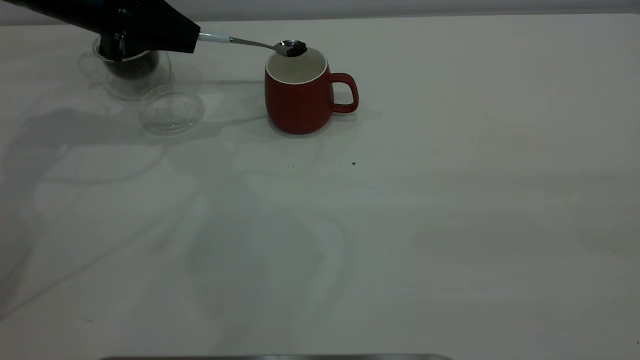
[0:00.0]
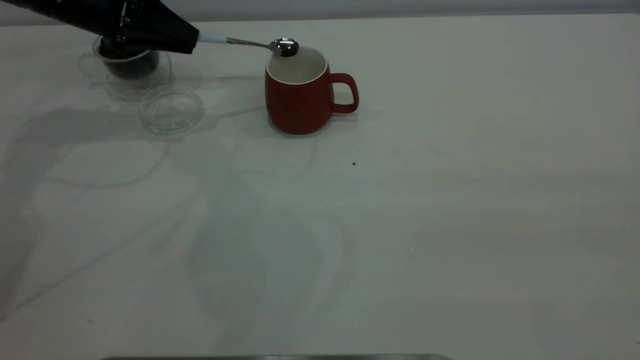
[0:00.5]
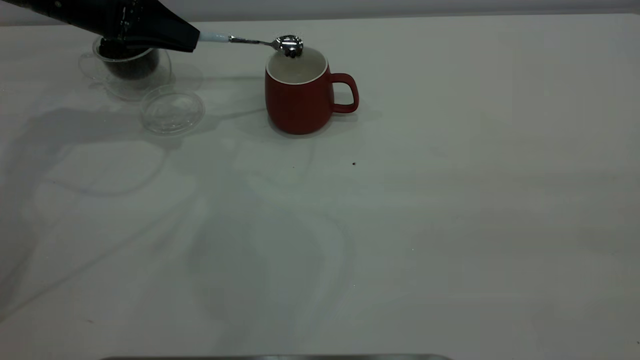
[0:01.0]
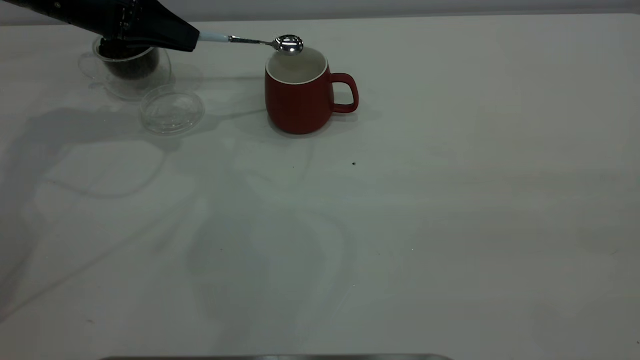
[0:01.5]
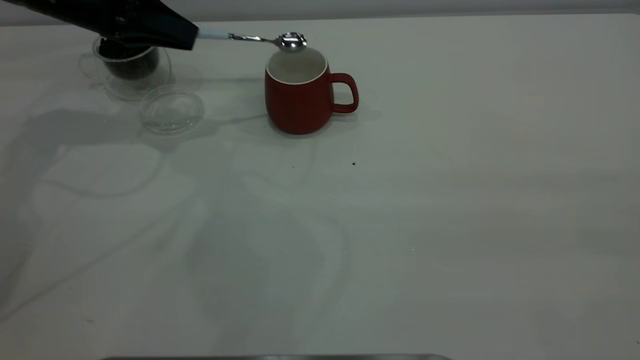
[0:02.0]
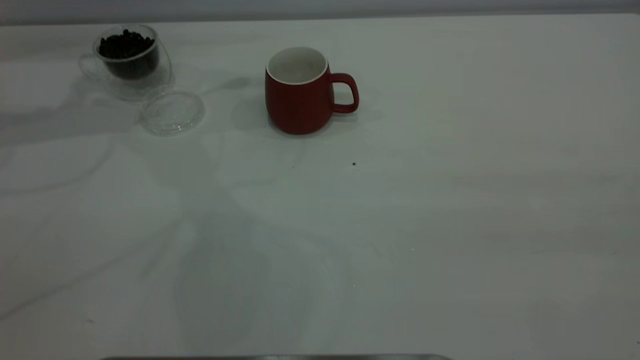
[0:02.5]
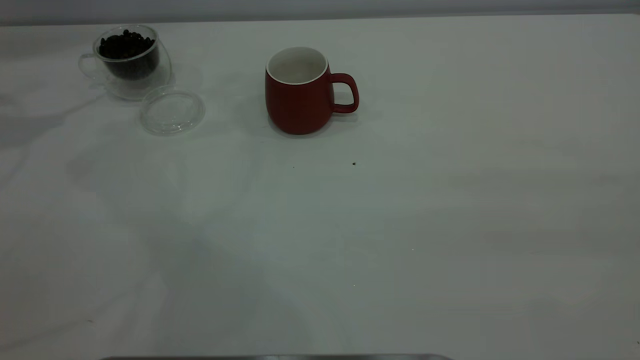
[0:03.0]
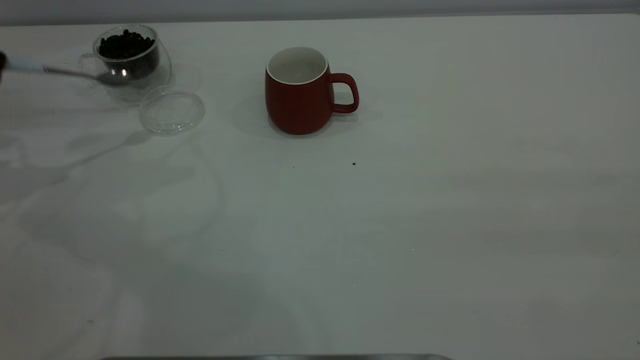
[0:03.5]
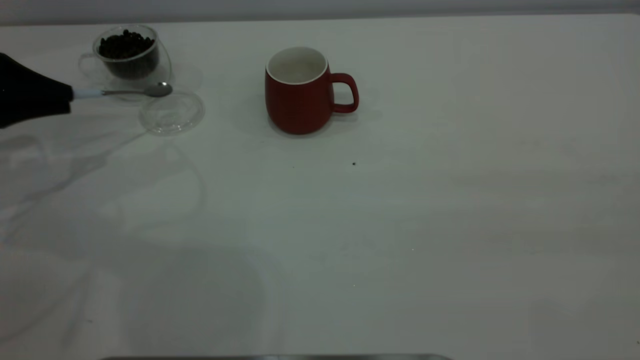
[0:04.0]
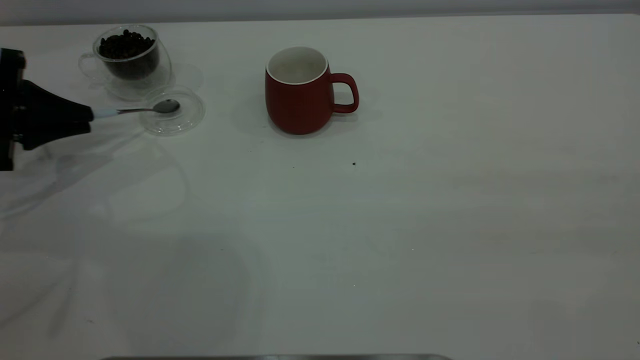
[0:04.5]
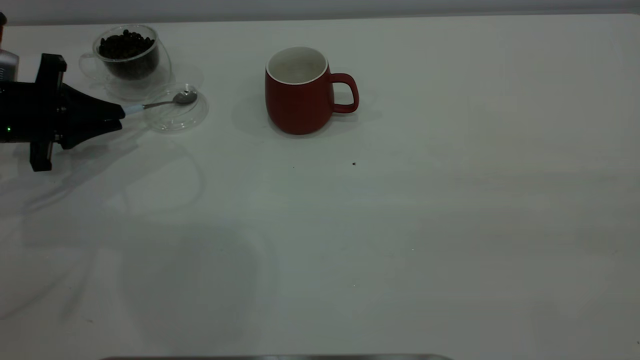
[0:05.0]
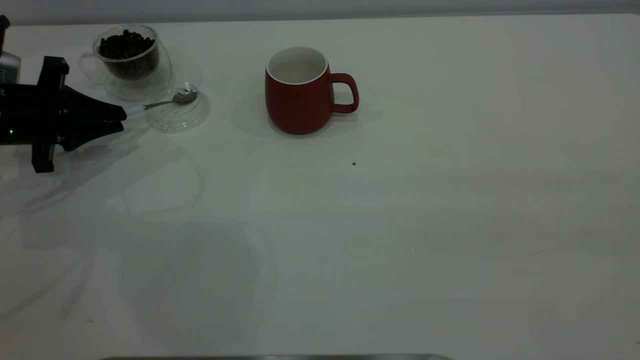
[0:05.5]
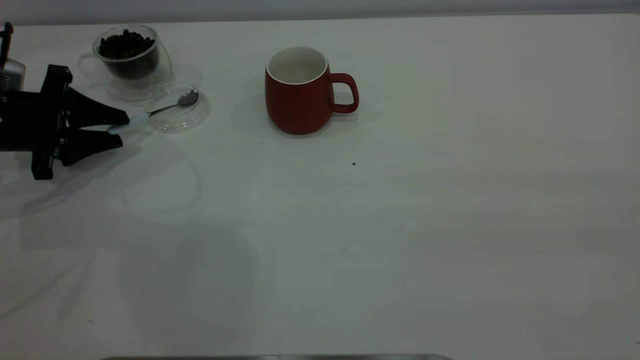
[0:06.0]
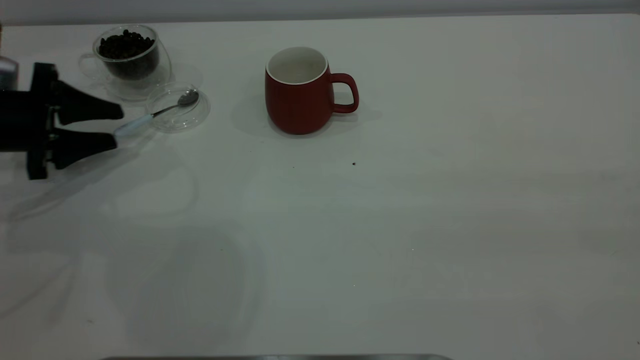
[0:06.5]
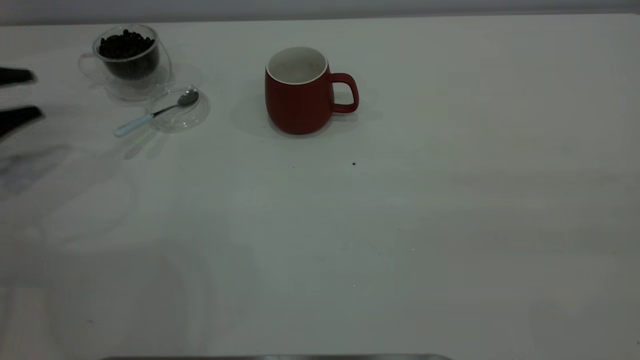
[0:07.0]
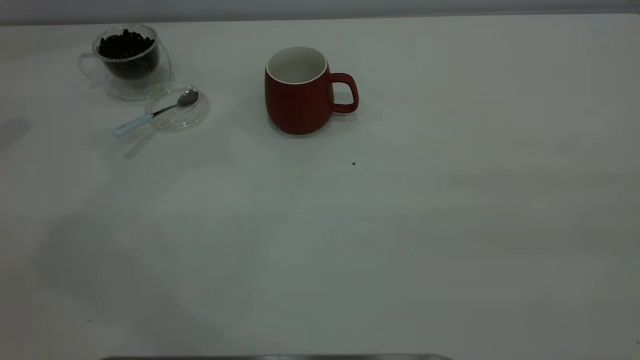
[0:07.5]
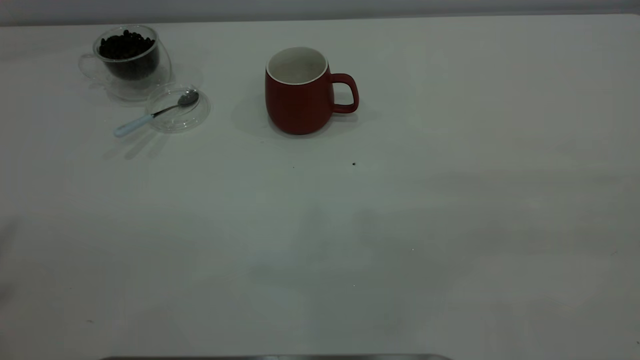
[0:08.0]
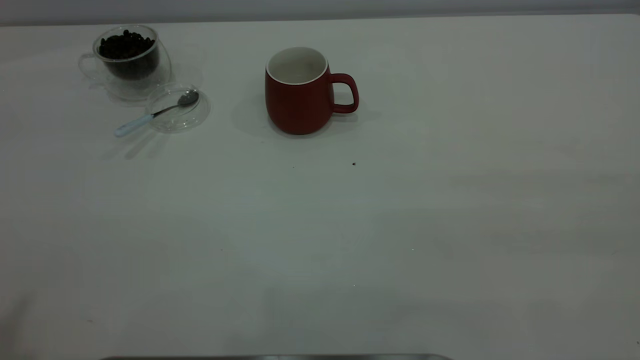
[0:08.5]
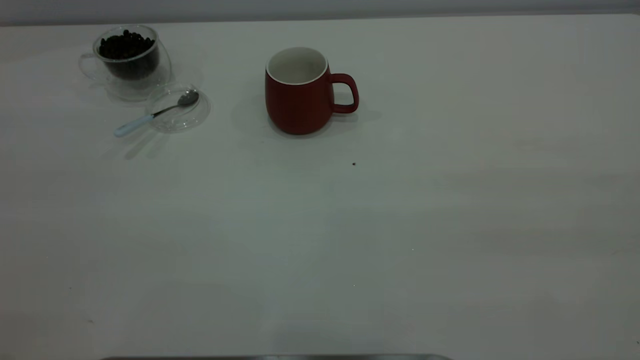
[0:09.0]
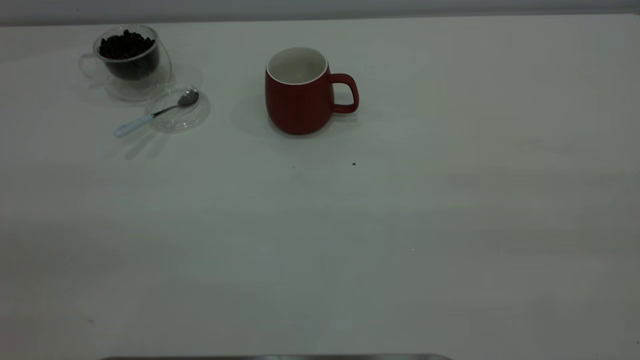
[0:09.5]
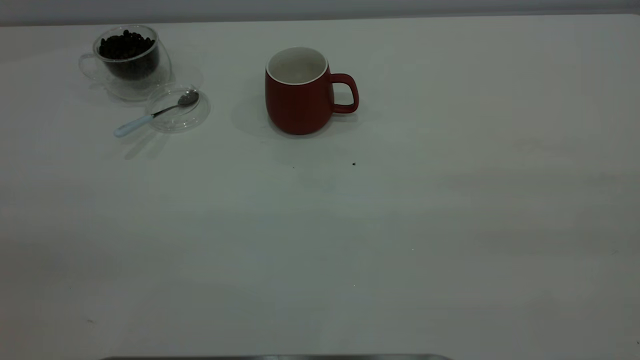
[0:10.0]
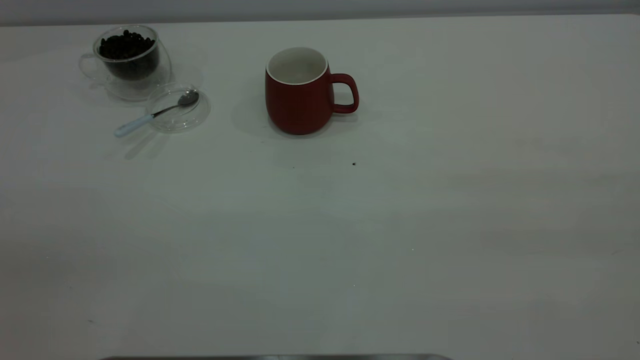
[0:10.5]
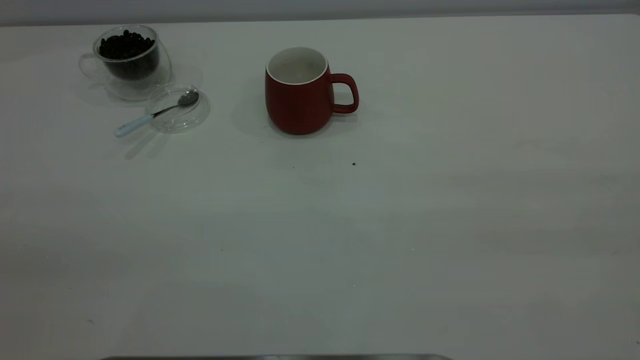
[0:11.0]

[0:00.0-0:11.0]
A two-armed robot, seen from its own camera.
Task of the whole recording: the right gripper place the red cup in the center of the table, the left gripper take the blue spoon from the cup lid and scoop out the coffee beans from the coffee cup and put them into the red cup, the left gripper put the spoon back into the cup lid.
Step, 0:02.5 to 0:06.5: Place the spoon back in its original place.
0:02.0 to 0:03.5: The left gripper is displaced to the left and backward by approximately 20 cm.
0:03.5 to 0:05.5: The left gripper heads downward and to the right, covering some 15 cm.
0:05.5 to 0:07.5: The left gripper heads upward, covering some 30 cm, and opens up.

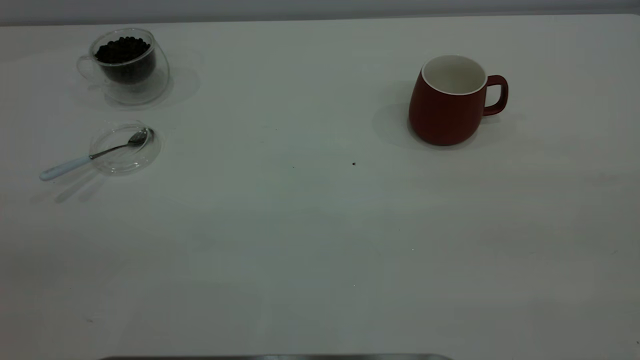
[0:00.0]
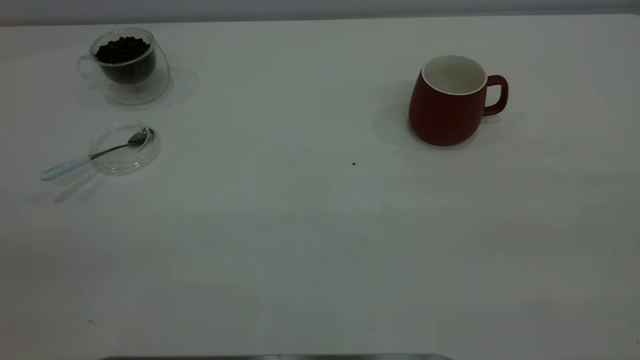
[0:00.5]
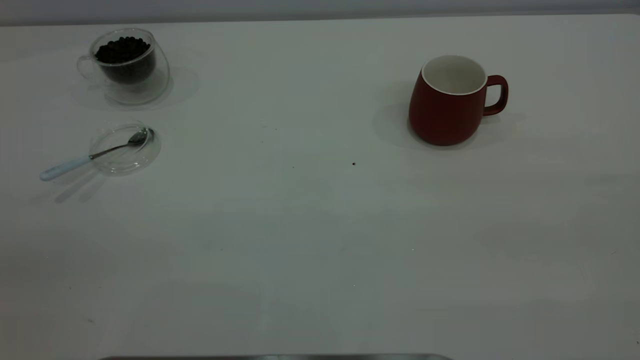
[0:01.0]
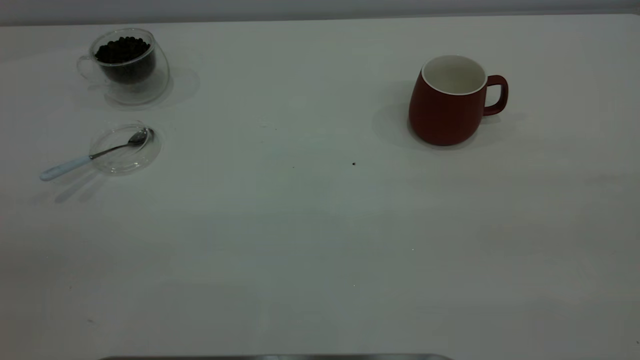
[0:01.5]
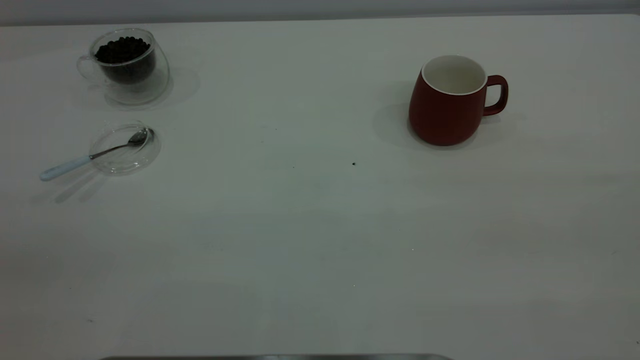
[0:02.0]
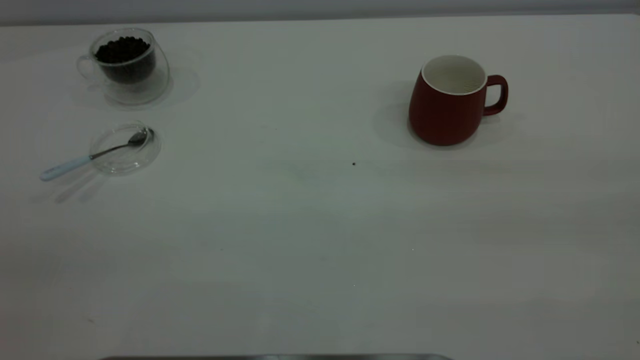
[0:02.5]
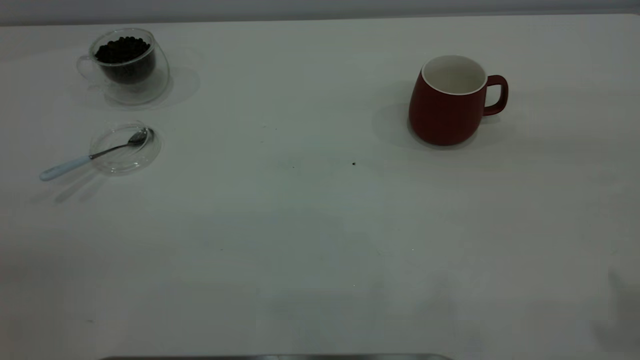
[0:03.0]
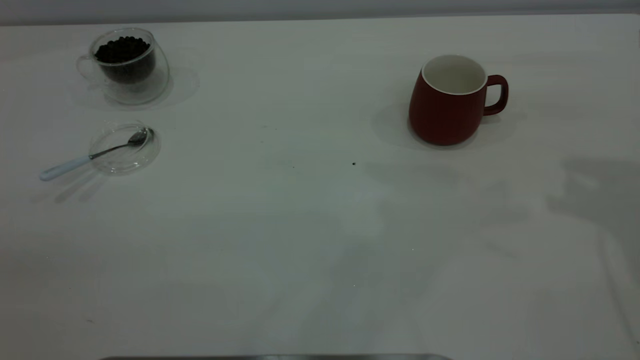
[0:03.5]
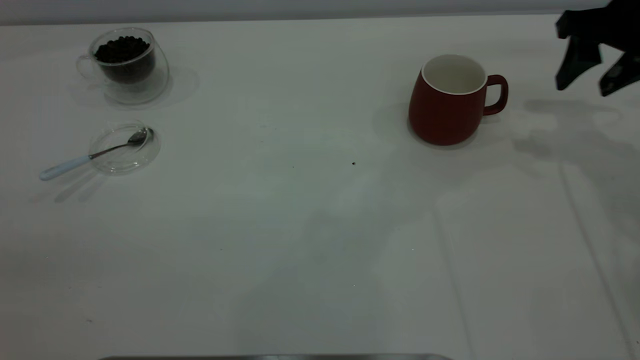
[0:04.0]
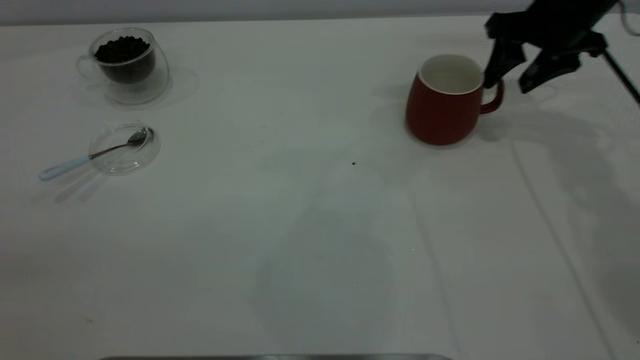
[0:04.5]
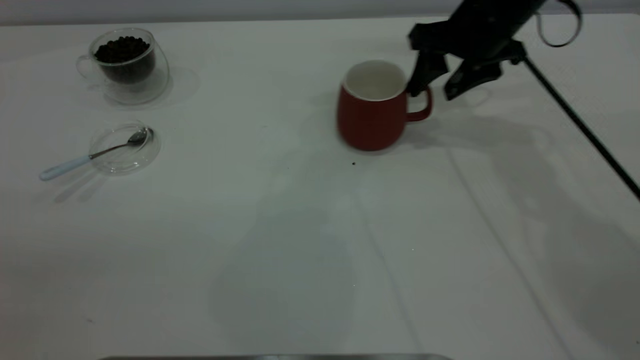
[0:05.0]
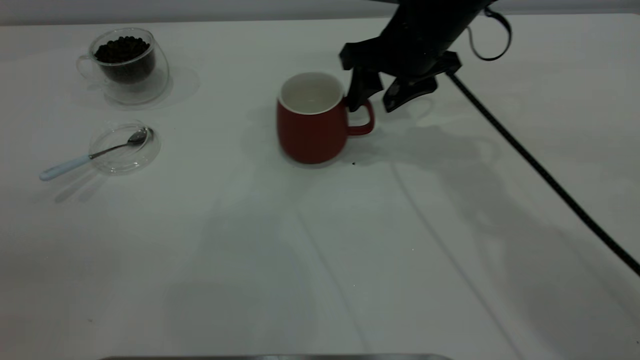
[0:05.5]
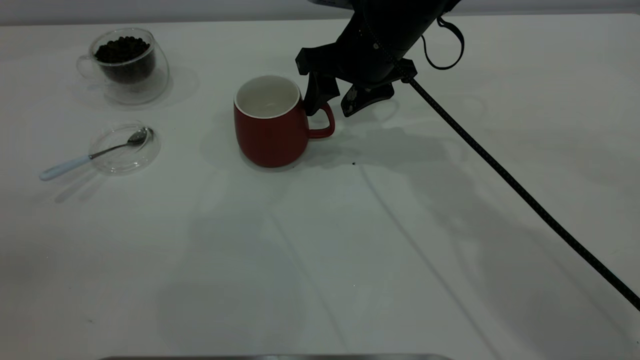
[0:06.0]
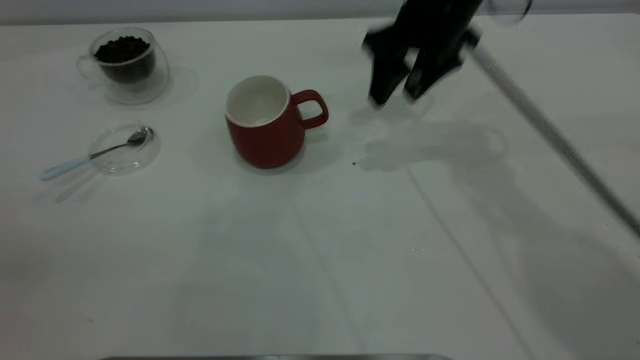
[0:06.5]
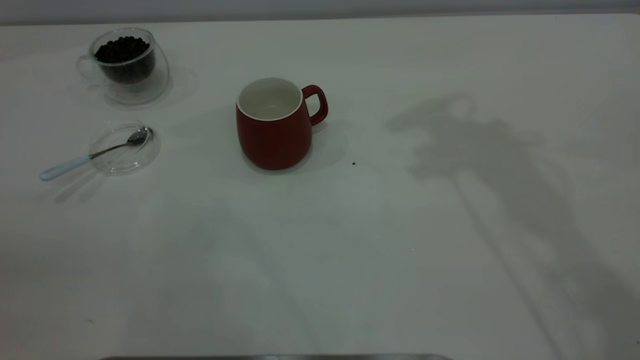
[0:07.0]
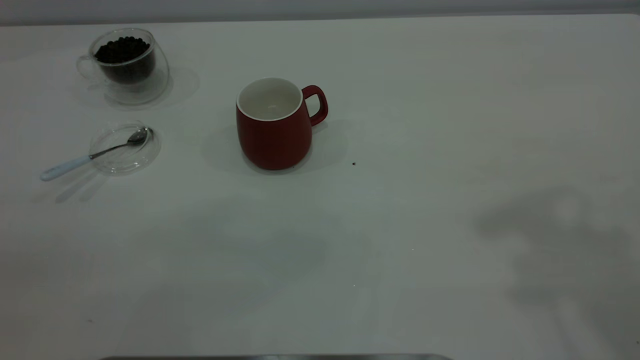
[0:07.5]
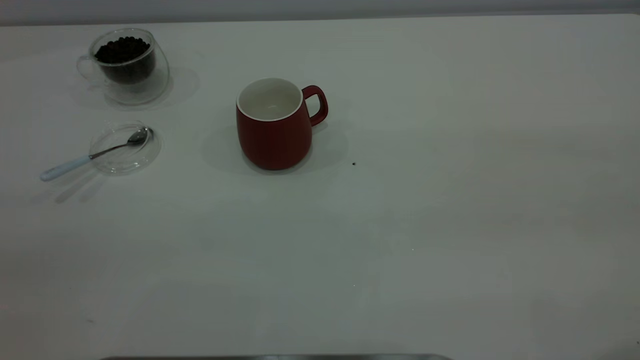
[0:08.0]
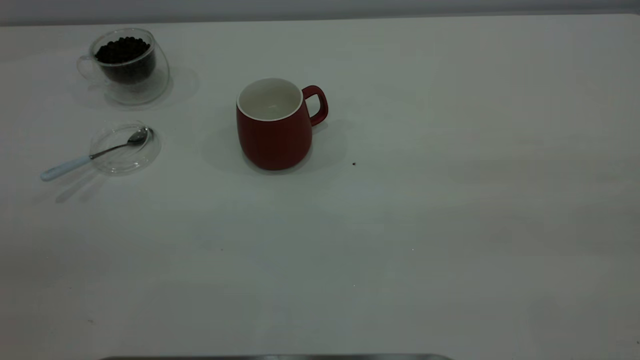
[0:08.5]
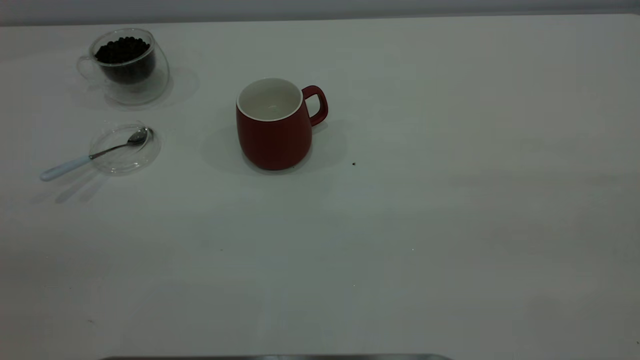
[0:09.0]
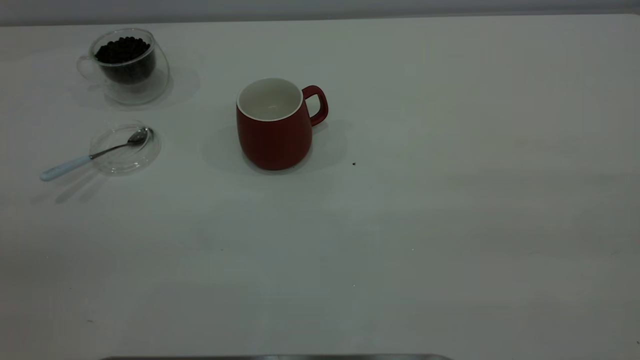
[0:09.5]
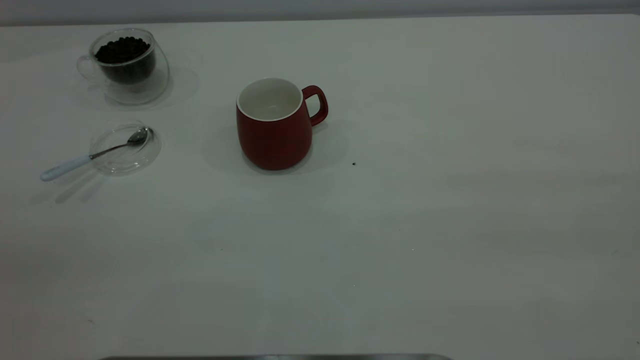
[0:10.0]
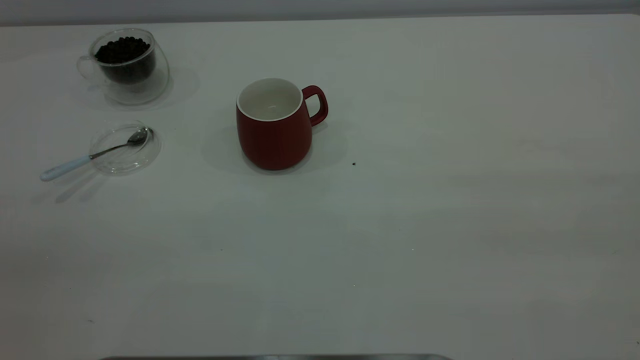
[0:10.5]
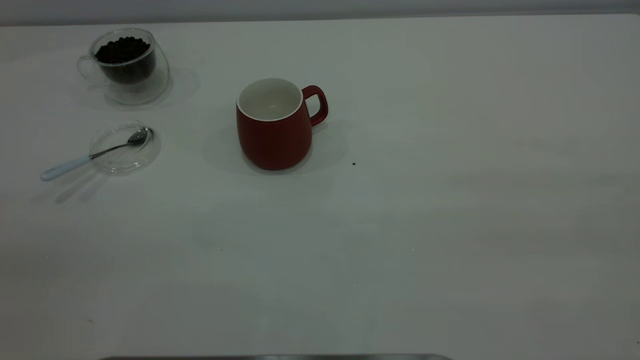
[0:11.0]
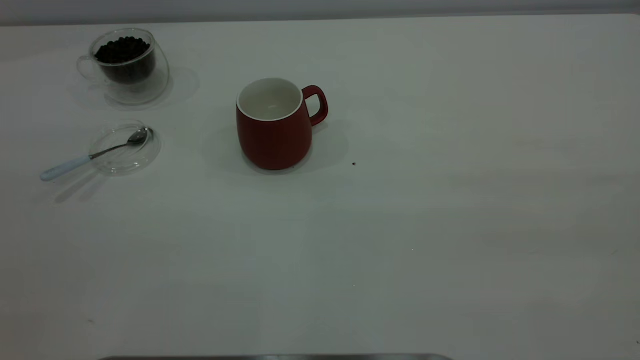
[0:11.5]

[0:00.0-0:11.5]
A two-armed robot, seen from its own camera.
Task of the whole recording: the right gripper place the red cup in the center of the table, the left gripper take the blue spoon from the cup lid and scoop out the coffee beans from the coffee cup and put them into the red cup, the left gripper put the spoon back into the cup lid.
Step, 0:00.0 to 0:06.0: Move the cup to the center of view.
0:00.0 to 0:02.0: The two grippers keep their place.
0:02.0 to 0:04.0: The right gripper shifts some 50 cm forward and downward, and opens up.
0:04.0 to 0:06.0: The right gripper shifts roughly 25 cm to the left.
0:06.0 to 0:07.5: The right gripper shifts about 40 cm upward, backward and to the right.
